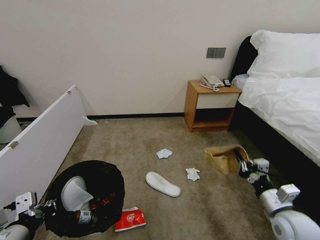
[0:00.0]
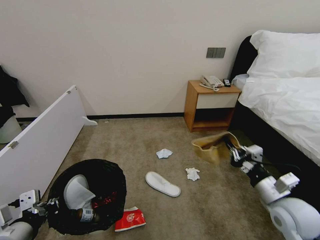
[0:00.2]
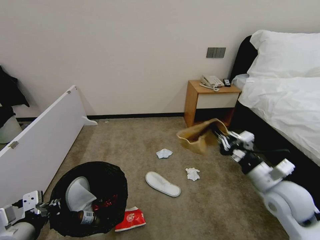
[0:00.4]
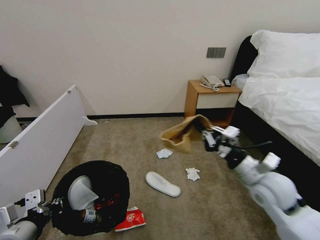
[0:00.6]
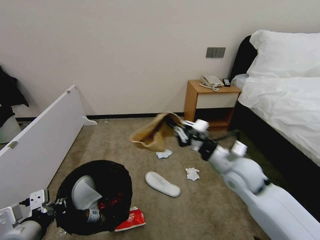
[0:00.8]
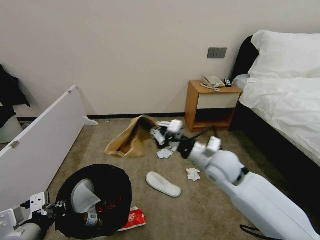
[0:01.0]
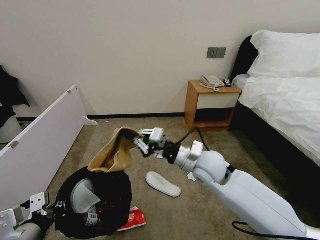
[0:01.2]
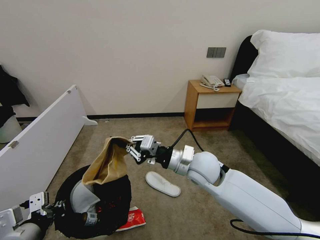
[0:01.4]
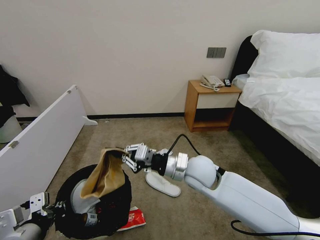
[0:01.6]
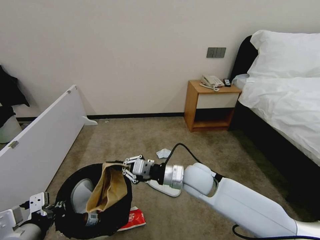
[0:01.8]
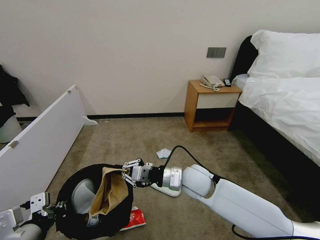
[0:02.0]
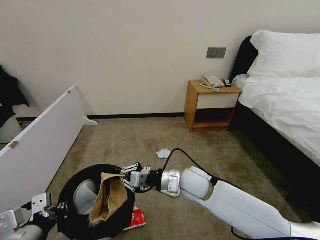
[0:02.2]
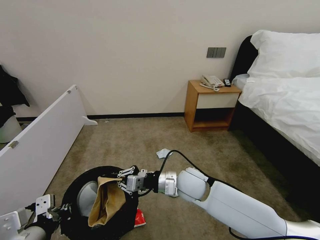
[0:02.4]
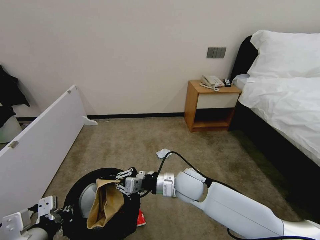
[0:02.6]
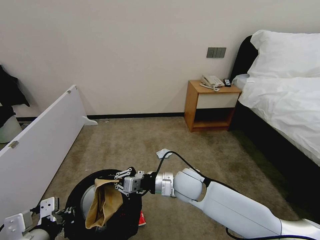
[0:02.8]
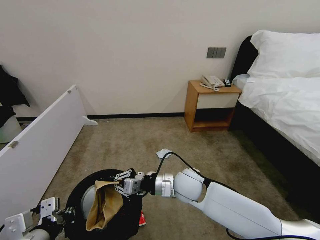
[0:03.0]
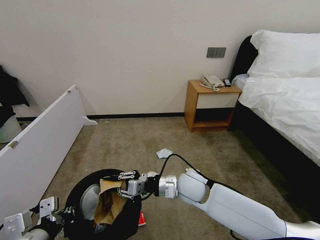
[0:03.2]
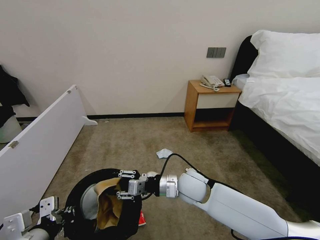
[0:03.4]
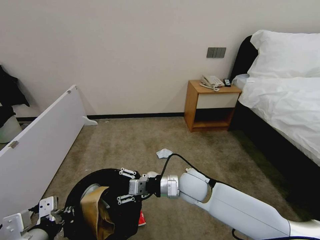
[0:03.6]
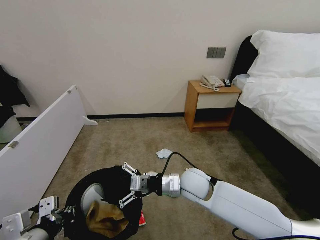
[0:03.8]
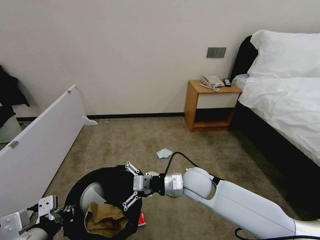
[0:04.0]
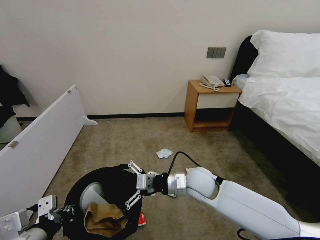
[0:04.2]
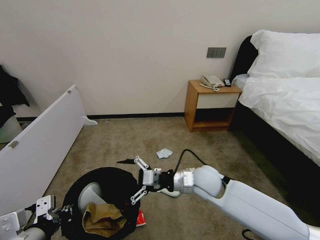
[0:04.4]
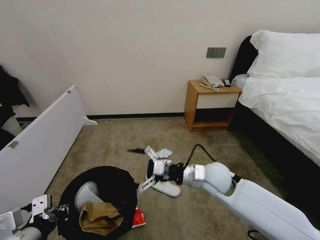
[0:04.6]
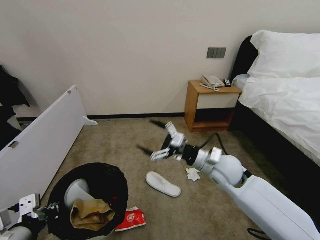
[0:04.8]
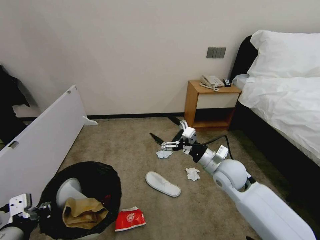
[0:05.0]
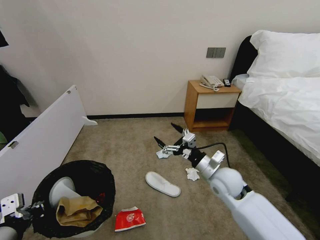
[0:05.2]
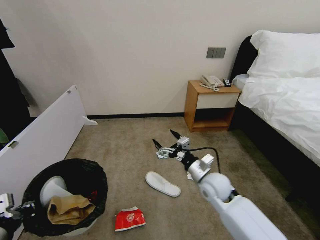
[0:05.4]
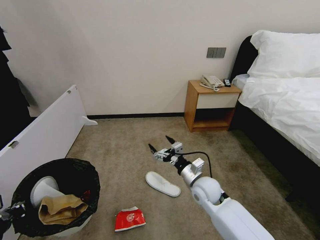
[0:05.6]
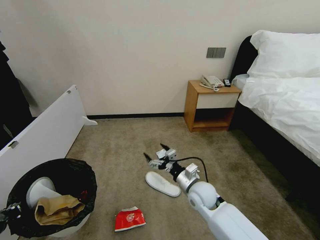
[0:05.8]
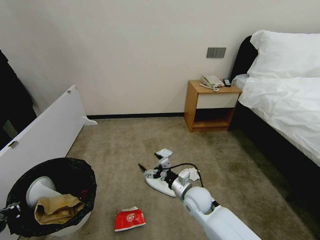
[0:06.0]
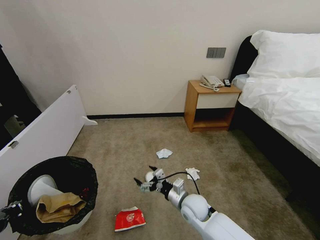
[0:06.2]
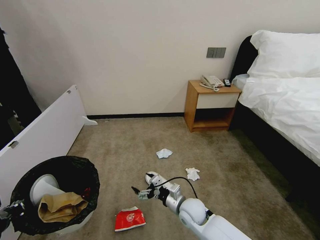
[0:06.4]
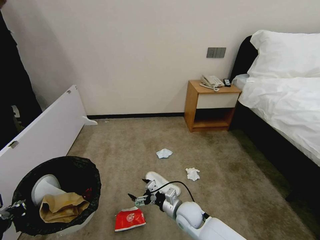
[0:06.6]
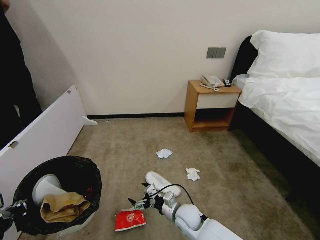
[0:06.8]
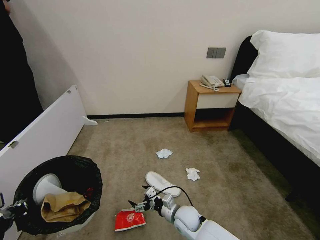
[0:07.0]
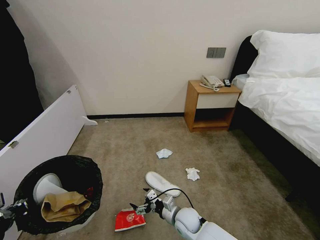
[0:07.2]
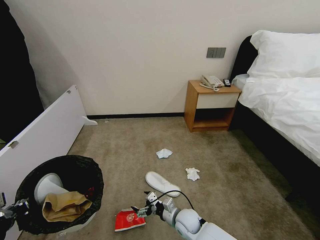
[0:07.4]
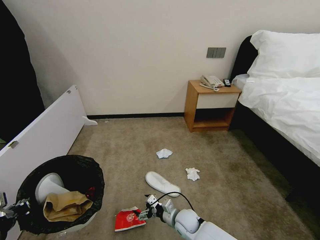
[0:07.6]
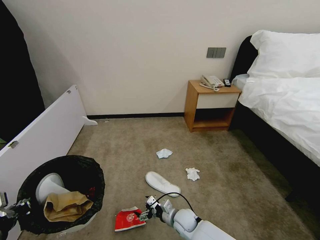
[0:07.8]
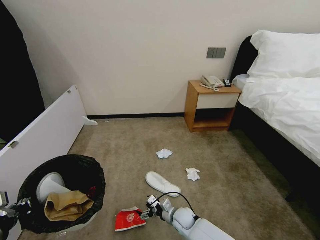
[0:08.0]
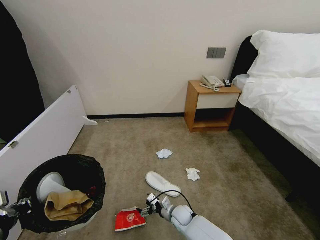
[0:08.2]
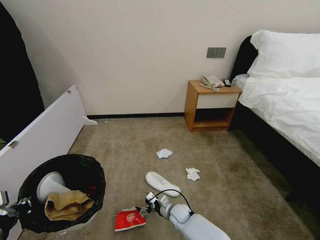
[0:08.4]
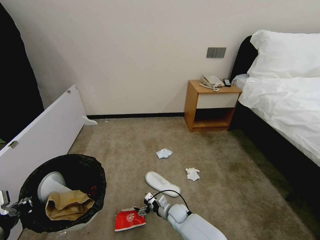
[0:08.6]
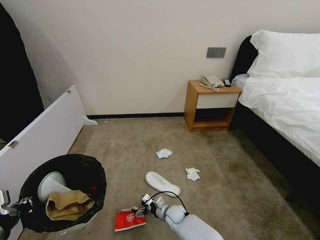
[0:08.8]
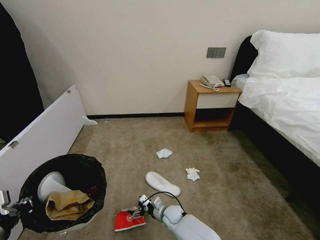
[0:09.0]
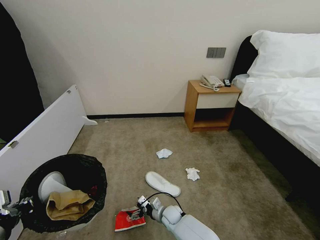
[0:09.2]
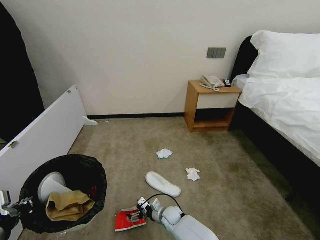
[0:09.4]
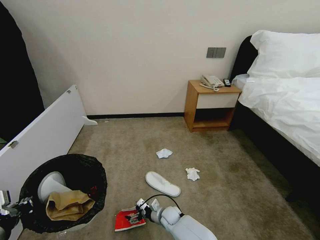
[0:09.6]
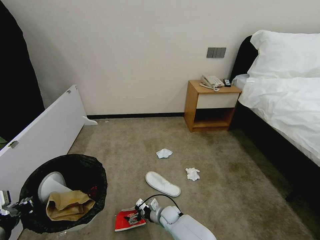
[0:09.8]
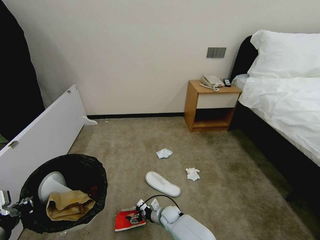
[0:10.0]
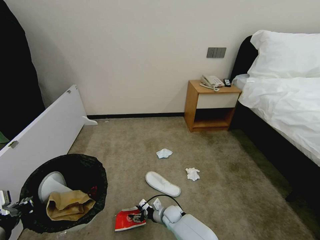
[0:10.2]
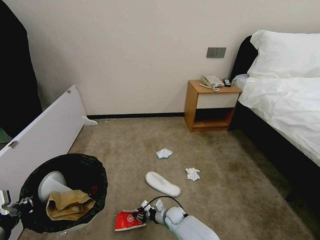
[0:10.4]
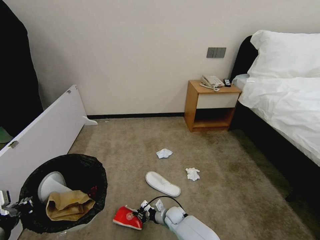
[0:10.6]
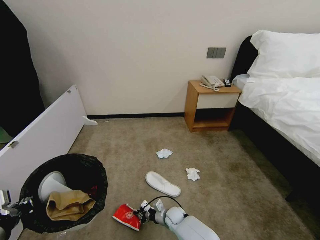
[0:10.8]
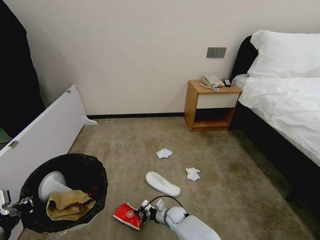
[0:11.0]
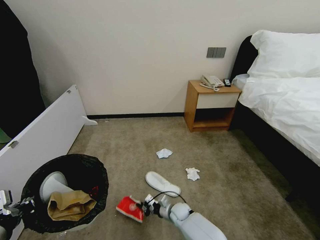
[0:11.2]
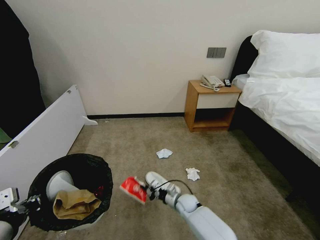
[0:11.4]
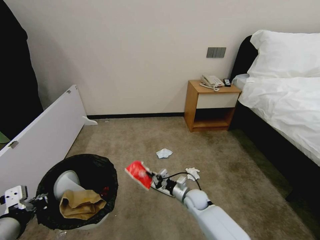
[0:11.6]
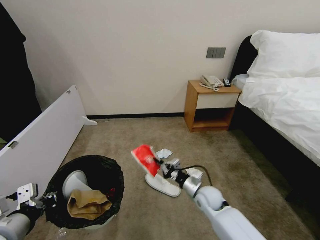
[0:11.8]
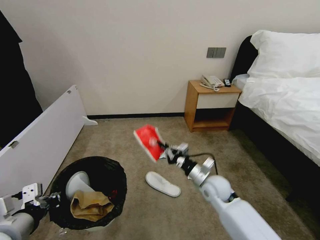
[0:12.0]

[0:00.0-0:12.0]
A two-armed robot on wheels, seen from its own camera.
Task of the whole recording: Pick up the trash bin, then pick up the garbage from the floor and place it into the trash bin.
0:00.0 to 0:01.6: The right gripper shifts approximately 30 cm to the left and forward.
0:01.6 to 0:03.0: The right gripper shifts approximately 5 cm downward.
0:03.0 to 0:04.4: The right gripper goes some 5 cm to the right, and opens up.
0:04.4 to 0:06.0: The left gripper goes some 10 cm to the left, while the right gripper moves downward, some 10 cm.
0:06.0 to 0:07.6: The right gripper moves downward, approximately 15 cm.
0:07.6 to 0:09.0: The right gripper moves downward, some 5 cm.
0:09.0 to 0:10.4: The right gripper closes its fingers.
0:10.4 to 0:12.0: The right gripper heads upward and to the right, covering roughly 25 cm, and closes its fingers.

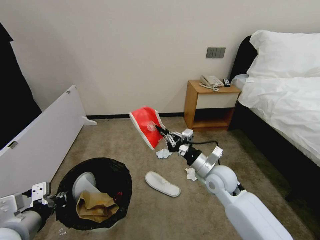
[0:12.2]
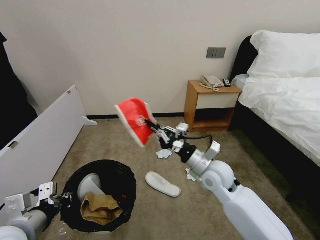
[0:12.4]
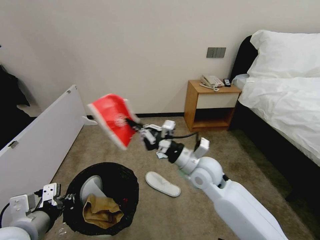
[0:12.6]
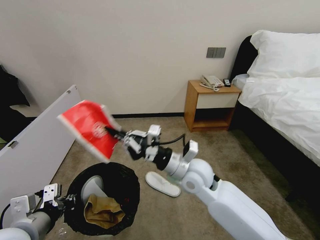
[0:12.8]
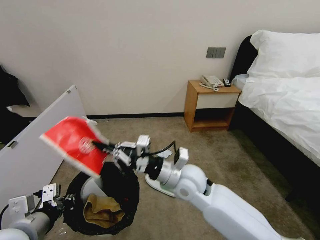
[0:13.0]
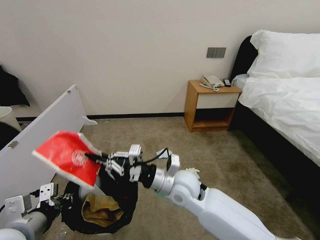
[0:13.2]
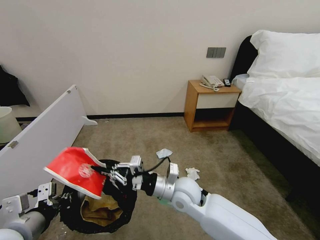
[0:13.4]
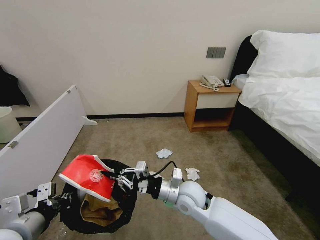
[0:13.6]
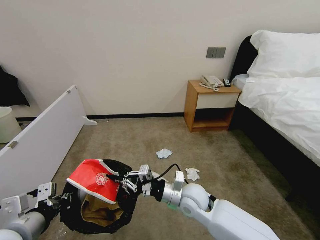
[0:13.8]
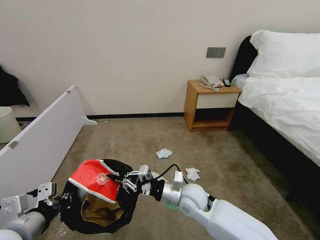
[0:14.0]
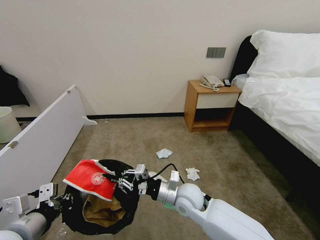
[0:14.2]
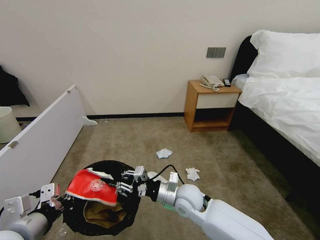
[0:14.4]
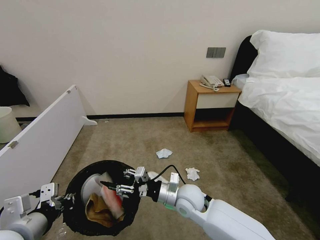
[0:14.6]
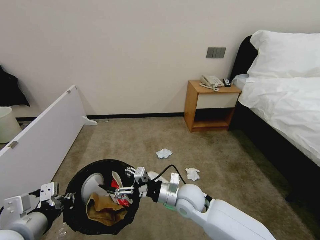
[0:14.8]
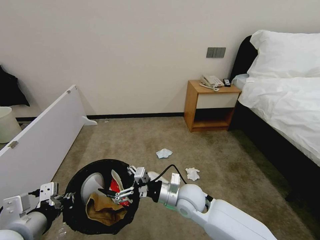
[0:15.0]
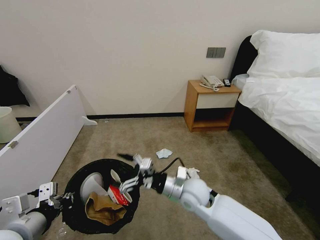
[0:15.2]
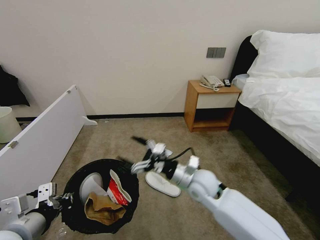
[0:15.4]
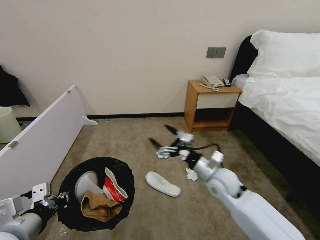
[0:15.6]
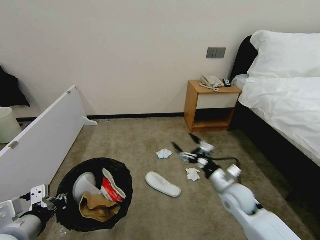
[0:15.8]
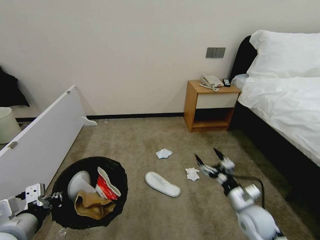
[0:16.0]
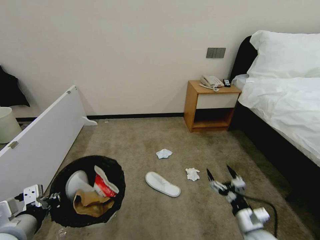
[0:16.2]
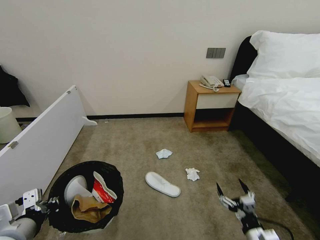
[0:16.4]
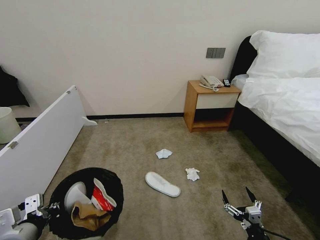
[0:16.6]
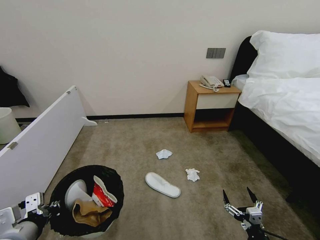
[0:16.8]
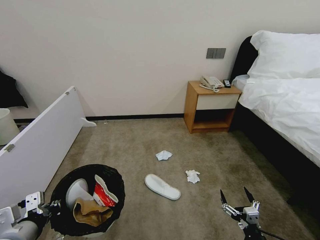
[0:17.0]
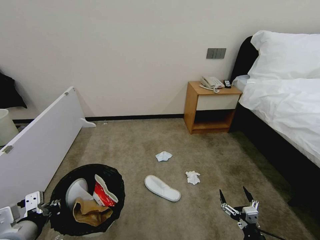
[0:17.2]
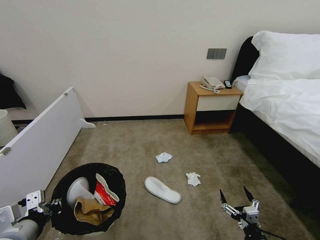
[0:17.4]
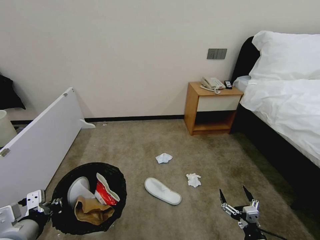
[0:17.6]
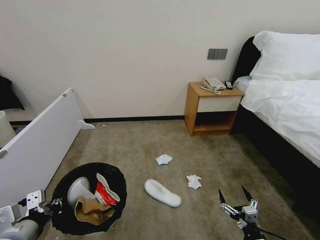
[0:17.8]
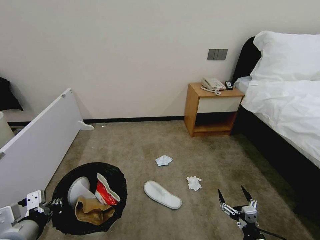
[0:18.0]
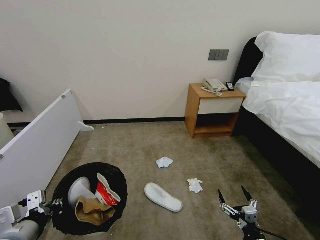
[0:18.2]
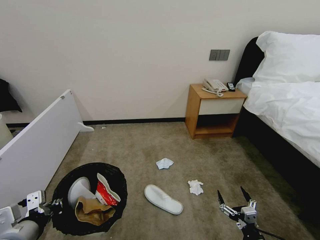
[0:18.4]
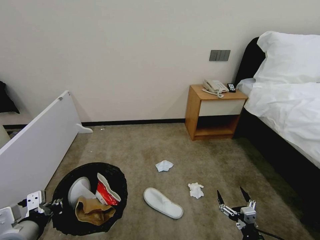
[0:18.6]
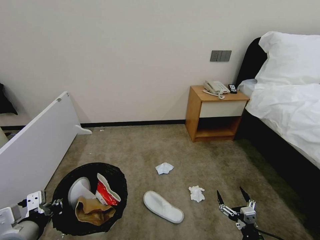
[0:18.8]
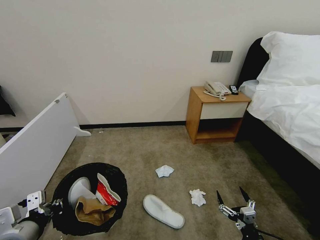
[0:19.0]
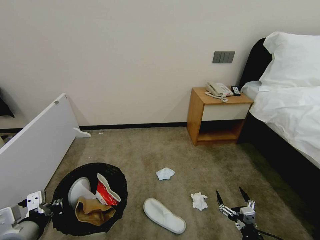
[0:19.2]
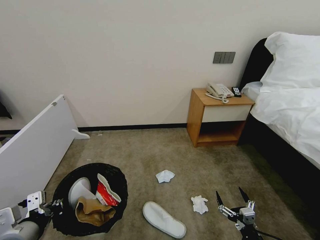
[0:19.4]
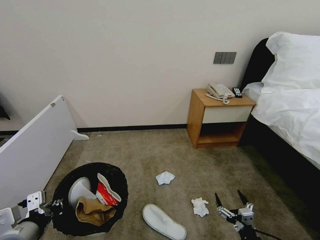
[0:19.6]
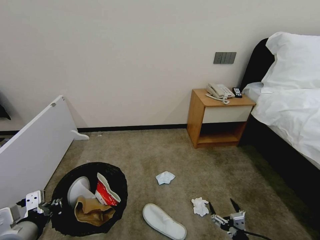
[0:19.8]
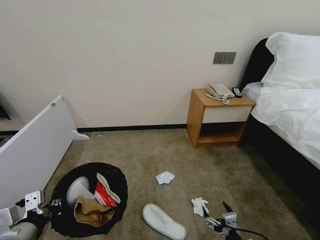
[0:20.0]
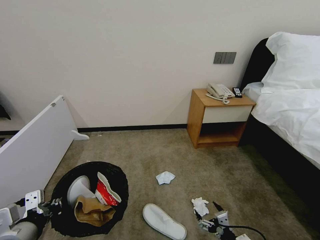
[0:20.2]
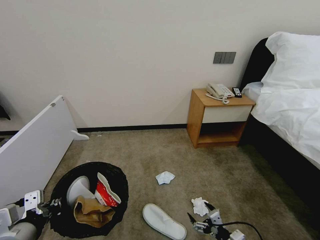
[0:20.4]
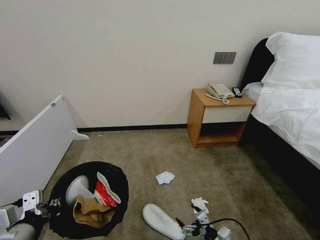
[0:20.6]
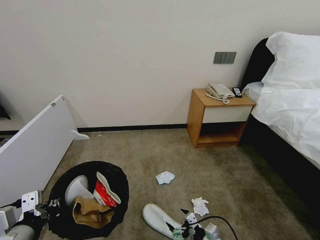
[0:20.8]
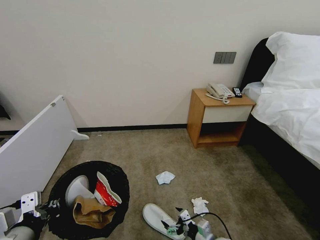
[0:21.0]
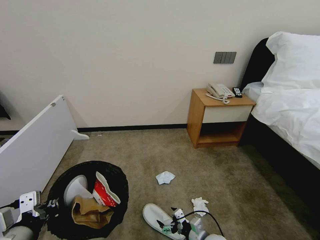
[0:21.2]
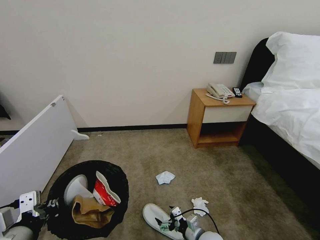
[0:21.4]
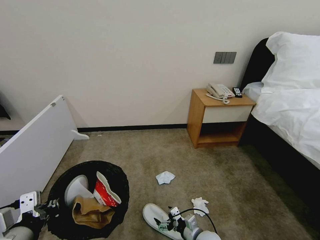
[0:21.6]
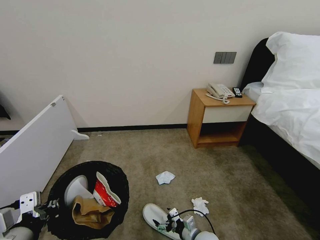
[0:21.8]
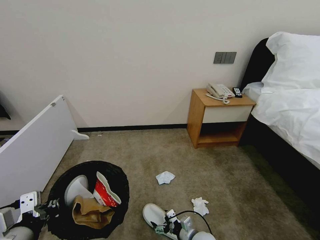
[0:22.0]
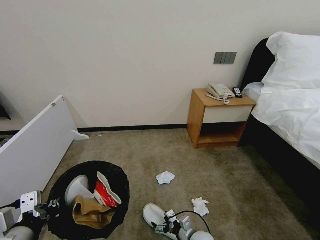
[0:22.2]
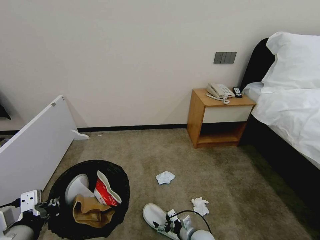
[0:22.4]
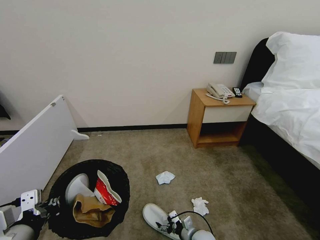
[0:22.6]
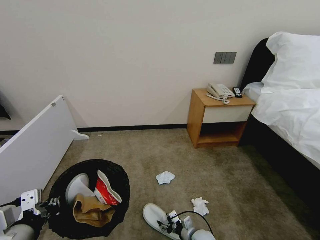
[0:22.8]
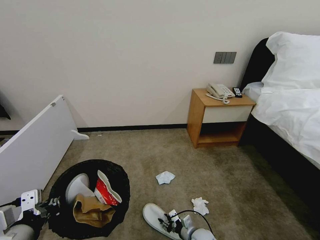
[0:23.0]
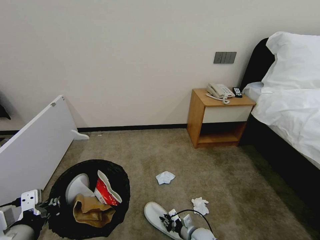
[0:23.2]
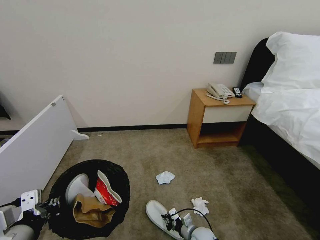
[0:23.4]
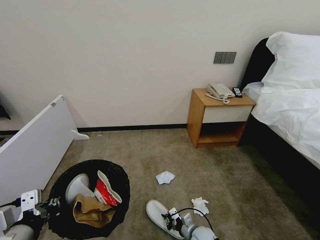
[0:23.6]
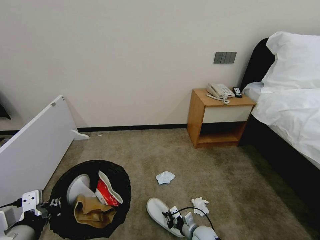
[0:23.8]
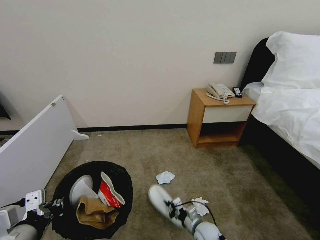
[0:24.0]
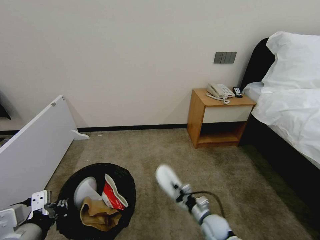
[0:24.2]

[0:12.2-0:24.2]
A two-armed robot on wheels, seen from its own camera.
Task of the whole recording: Pick up the trash bin, then pick up the garbage from the floor and place it into the trash bin.
0:12.2 to 0:13.8: The right gripper travels to the left by approximately 10 cm.
0:13.8 to 0:15.2: The right gripper opens up.
0:15.2 to 0:16.6: The right gripper moves to the right, backward and downward, roughly 35 cm.
0:16.6 to 0:18.2: Both grippers stay put.
0:18.2 to 0:19.8: There are only small adjustments of the grippers.
0:19.8 to 0:21.2: The right gripper heads forward and to the left, covering some 15 cm.
0:21.2 to 0:22.6: The right gripper moves downward, about 10 cm.
0:22.6 to 0:24.2: The right gripper shifts some 10 cm upward, and closes its fingers.
